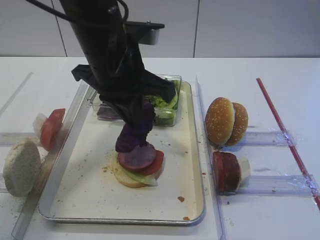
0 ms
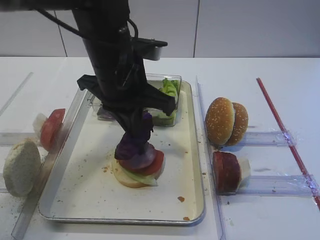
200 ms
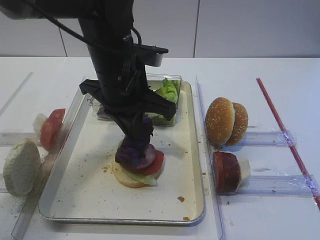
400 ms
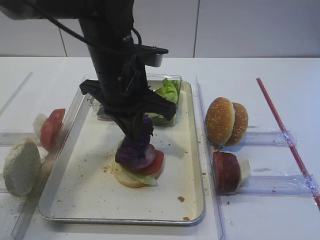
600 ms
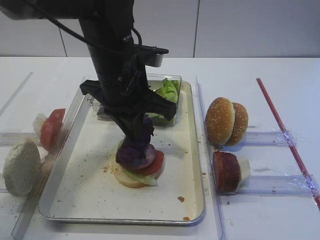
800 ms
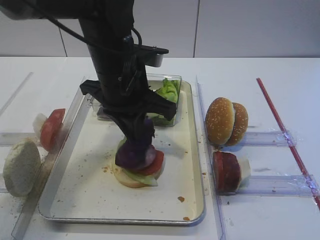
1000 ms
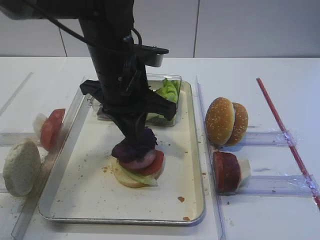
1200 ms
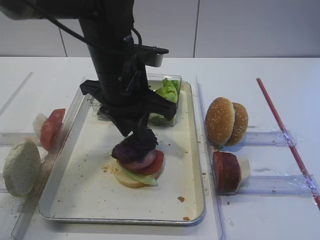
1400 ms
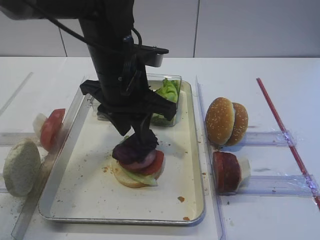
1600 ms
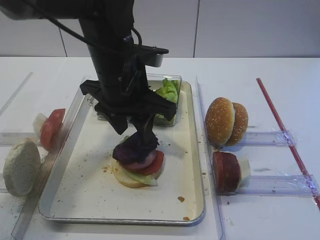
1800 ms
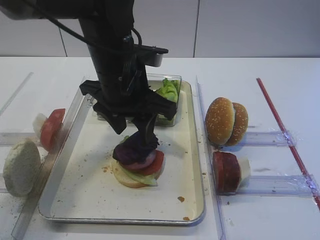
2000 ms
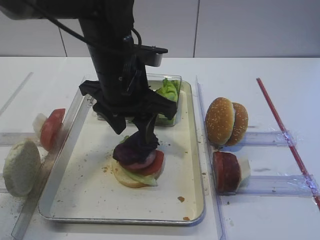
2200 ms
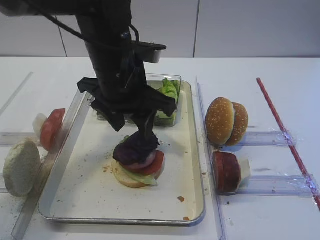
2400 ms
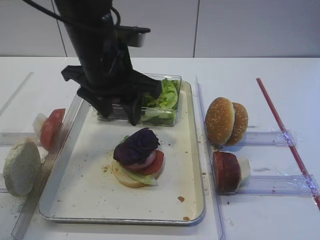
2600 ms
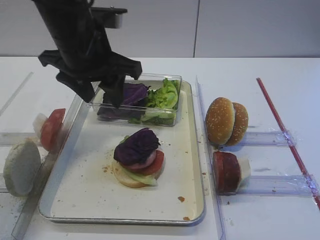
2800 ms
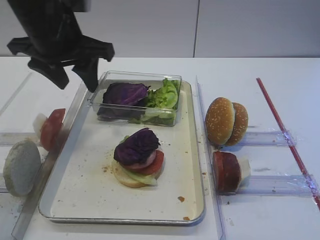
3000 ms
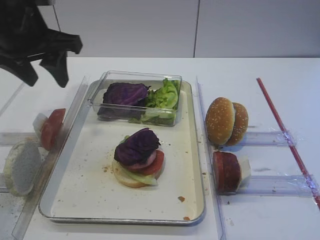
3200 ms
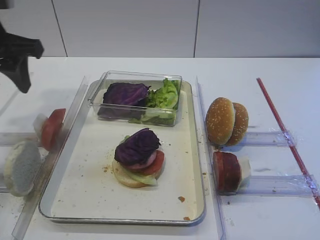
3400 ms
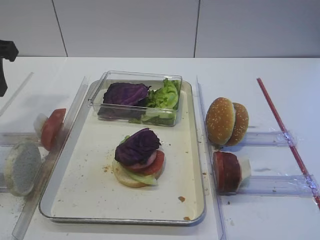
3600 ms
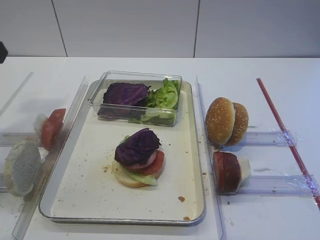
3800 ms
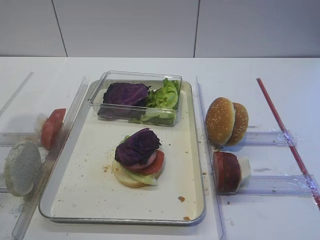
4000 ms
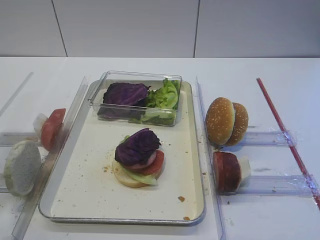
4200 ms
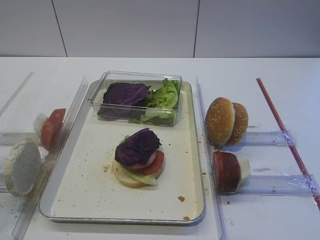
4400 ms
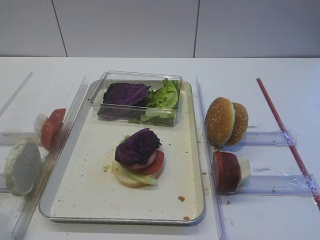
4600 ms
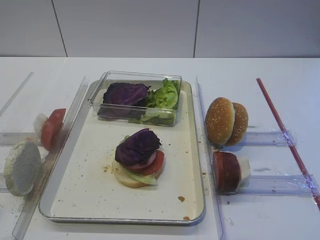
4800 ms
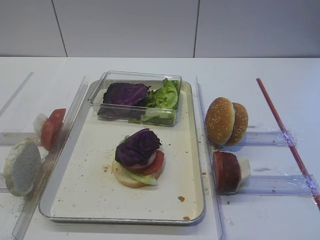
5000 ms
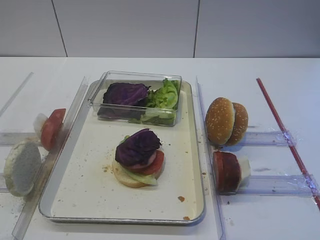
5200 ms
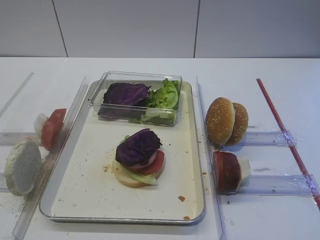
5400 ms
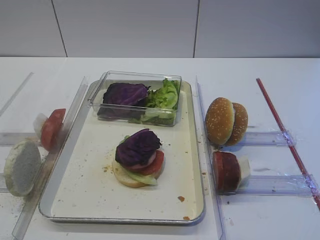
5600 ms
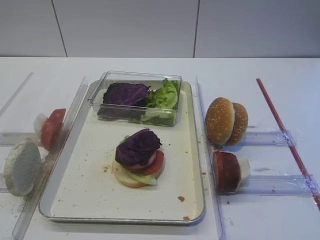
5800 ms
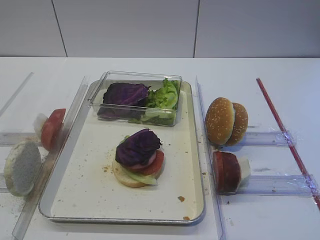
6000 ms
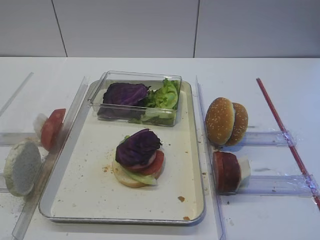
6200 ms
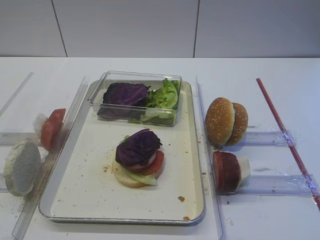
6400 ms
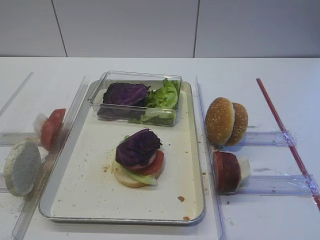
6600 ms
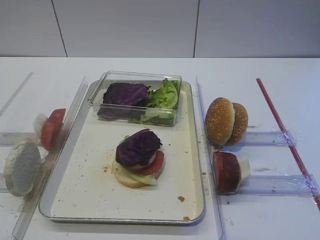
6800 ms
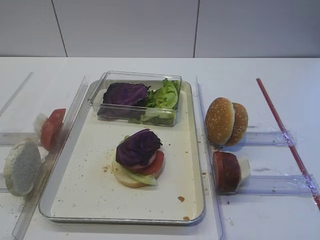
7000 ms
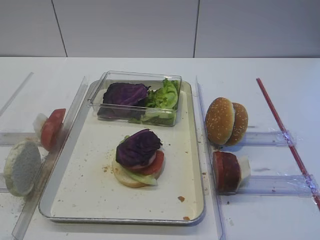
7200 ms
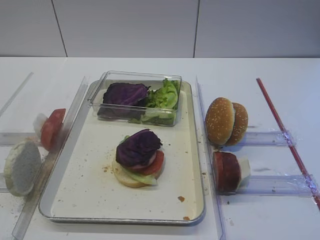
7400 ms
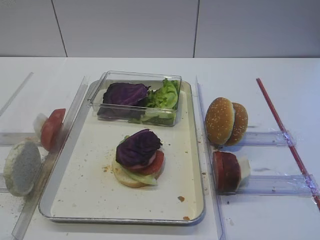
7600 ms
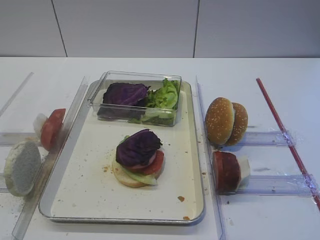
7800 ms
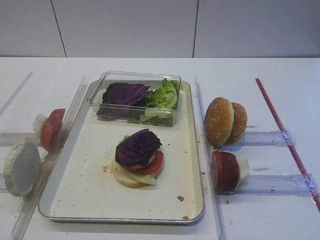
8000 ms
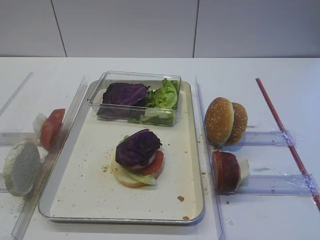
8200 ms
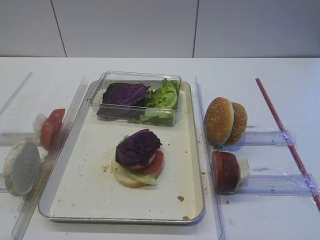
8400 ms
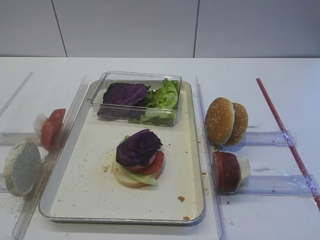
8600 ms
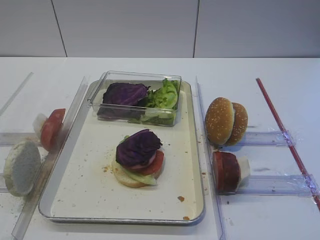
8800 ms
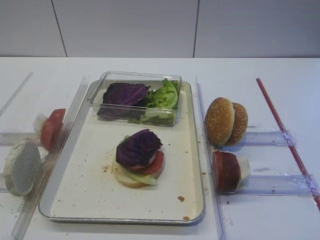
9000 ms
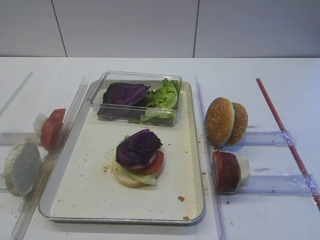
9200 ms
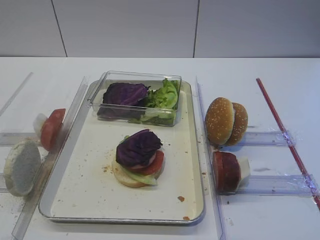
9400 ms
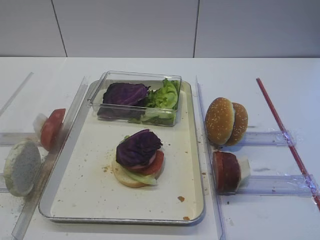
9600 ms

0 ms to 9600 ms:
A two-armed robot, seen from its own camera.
Step, 0 ms to 2600 ms: Place the purple cabbage on the cutlet with the left gripper.
0 ms to 1600 ms: The left gripper opens up.
1600 ms to 3200 ms: The left gripper moves to the left and upward, some 15 cm.
3200 ms to 4800 ms: The left gripper shifts some 30 cm backward.
6400 ms to 8000 ms: The right gripper opens its fingers.

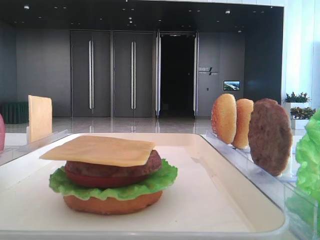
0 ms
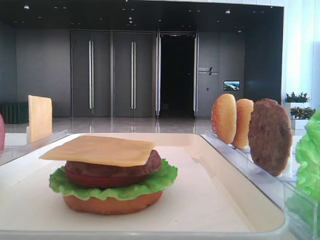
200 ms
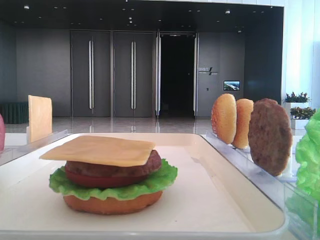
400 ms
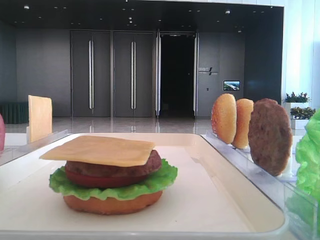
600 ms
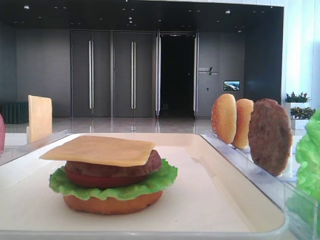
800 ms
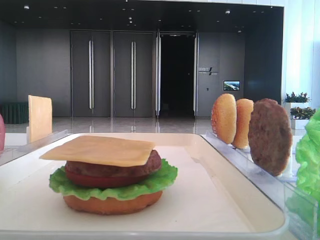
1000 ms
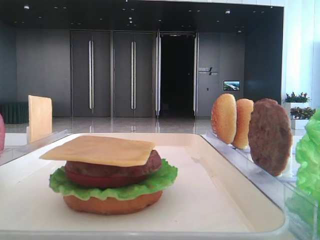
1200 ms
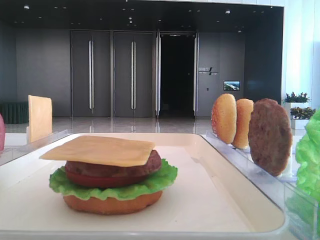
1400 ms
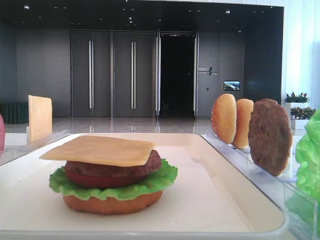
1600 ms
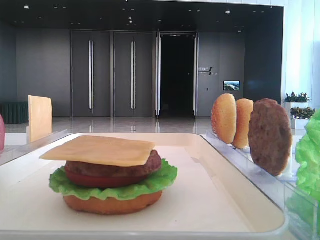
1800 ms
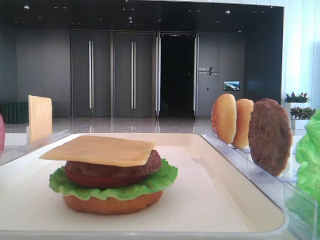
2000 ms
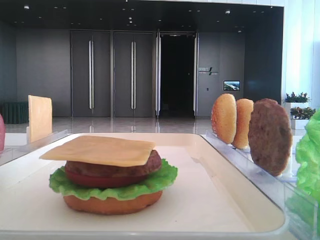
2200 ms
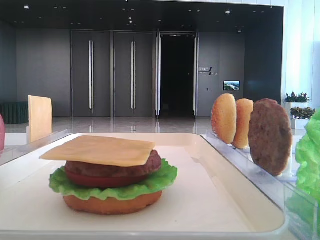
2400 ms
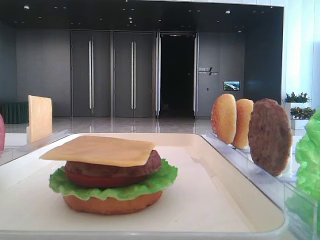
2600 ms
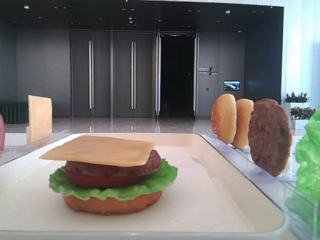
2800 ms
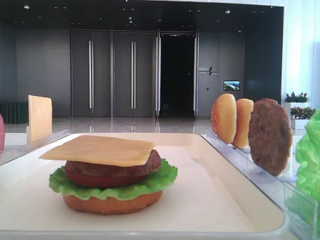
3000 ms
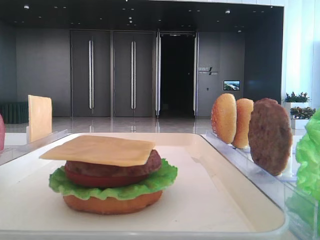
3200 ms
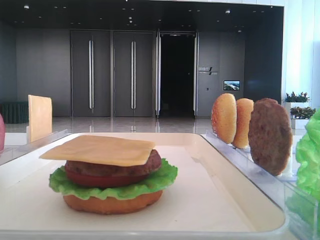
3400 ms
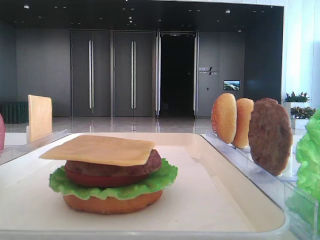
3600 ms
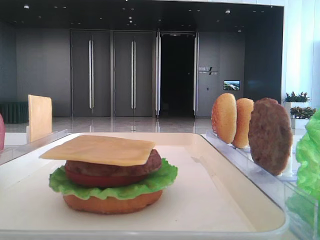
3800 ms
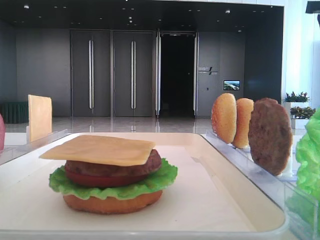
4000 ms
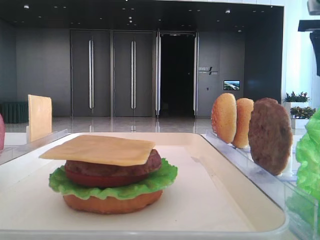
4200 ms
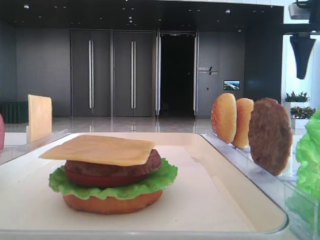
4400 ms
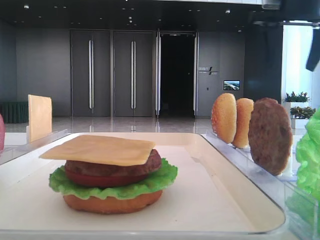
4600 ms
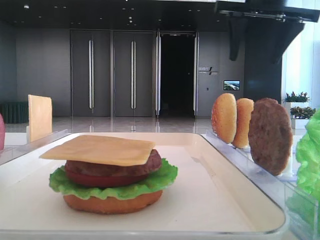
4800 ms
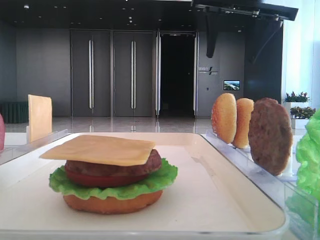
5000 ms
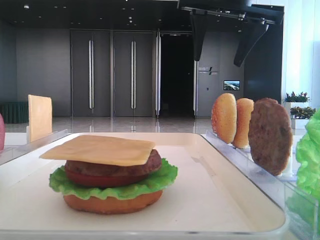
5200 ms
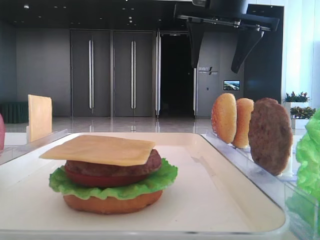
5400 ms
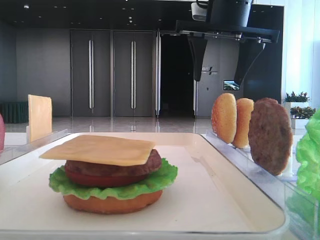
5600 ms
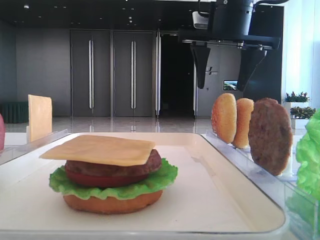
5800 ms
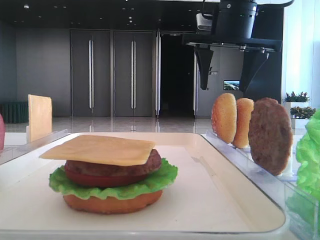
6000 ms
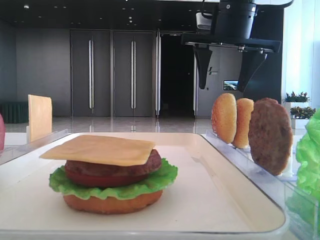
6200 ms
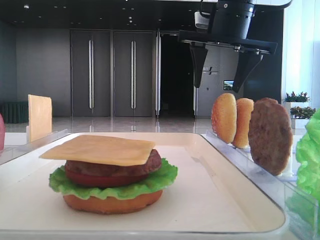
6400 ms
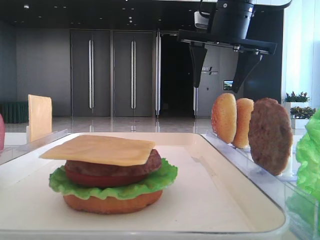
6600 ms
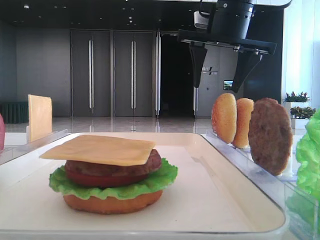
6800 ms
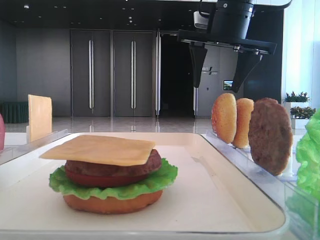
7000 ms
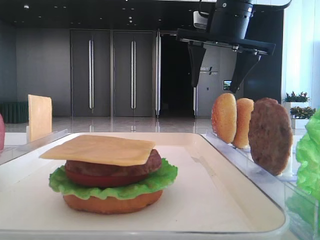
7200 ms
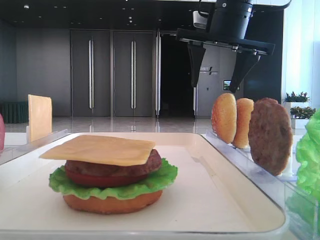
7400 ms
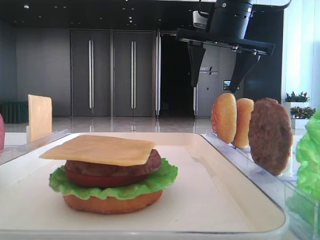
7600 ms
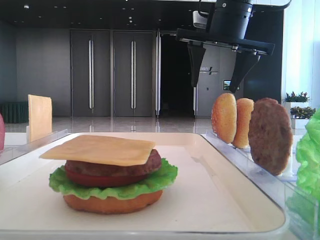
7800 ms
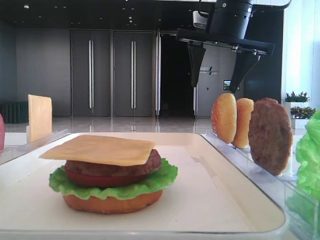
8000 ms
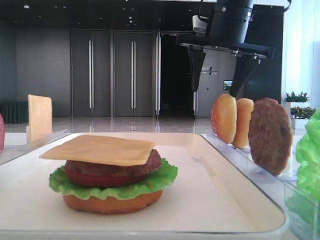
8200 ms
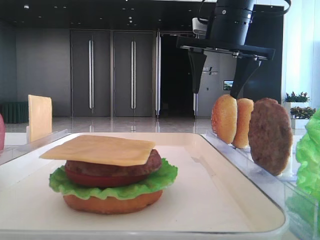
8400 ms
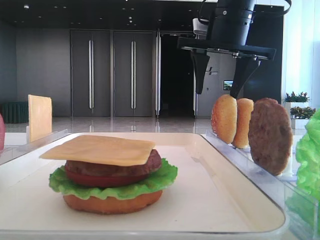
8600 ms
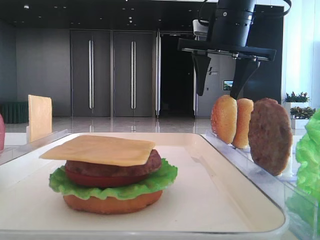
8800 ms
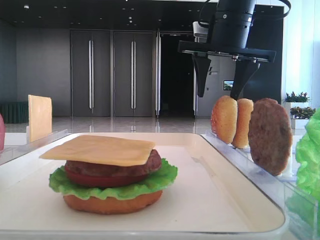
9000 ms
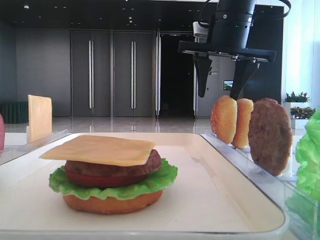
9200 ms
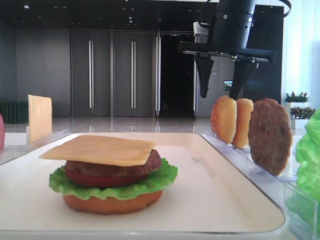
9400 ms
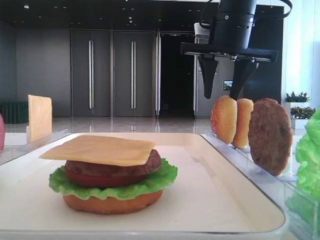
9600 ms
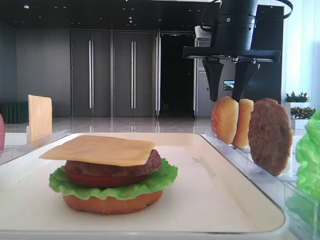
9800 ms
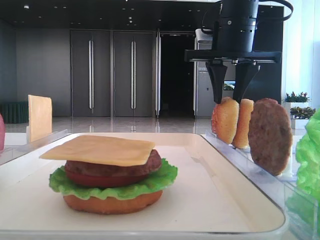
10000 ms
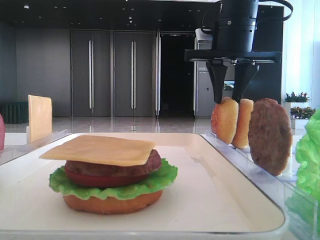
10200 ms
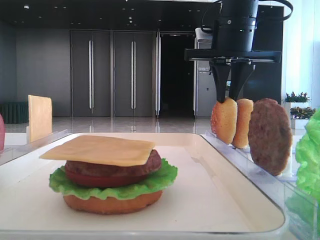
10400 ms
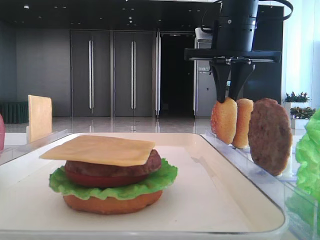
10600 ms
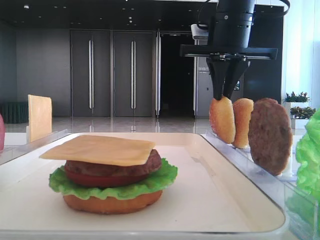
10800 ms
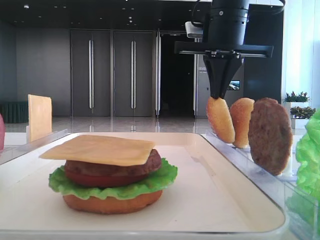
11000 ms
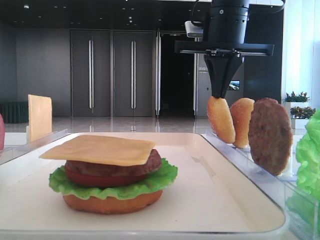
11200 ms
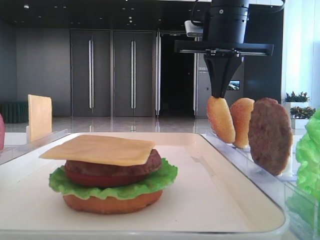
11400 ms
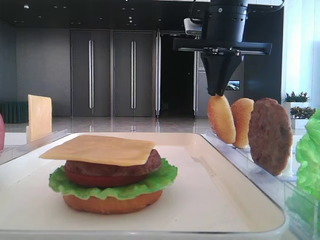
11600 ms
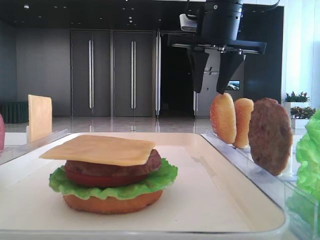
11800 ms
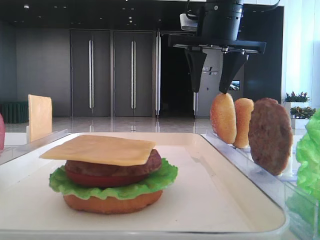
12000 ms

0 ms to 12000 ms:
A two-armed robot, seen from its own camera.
3000 ms to 4400 ms: The right gripper travels forward by some 30 cm.
4400 ms to 6000 ms: The right gripper shifts approximately 15 cm to the left.
6000 ms to 7600 ms: The two grippers keep their place.
7600 ms to 9000 ms: The grippers stay close to where they were, moving slightly.
9000 ms to 10400 ms: The right gripper closes.
10400 ms to 12000 ms: The right gripper opens its fingers.

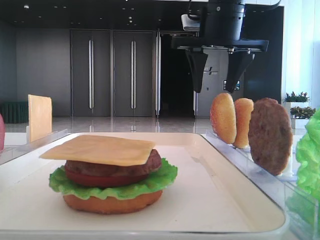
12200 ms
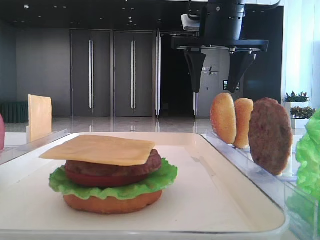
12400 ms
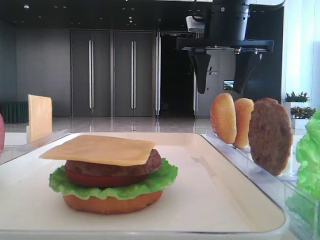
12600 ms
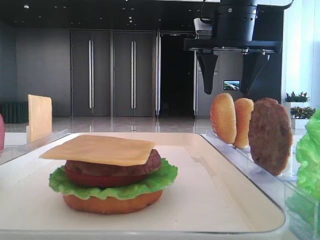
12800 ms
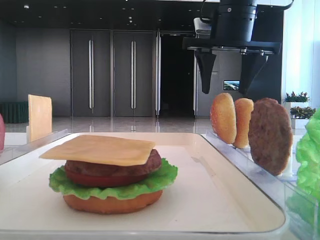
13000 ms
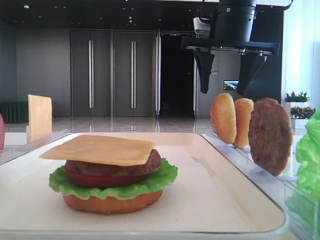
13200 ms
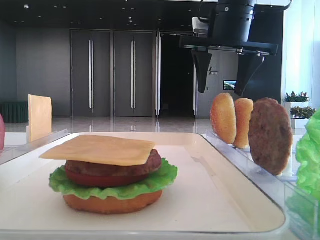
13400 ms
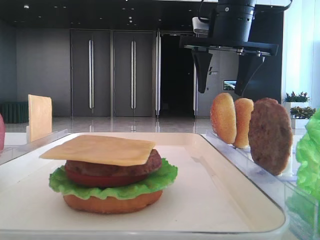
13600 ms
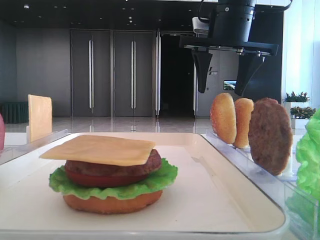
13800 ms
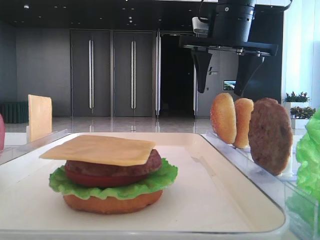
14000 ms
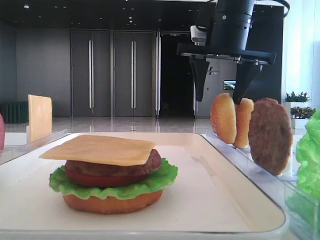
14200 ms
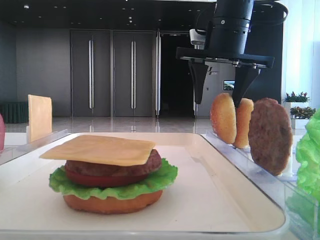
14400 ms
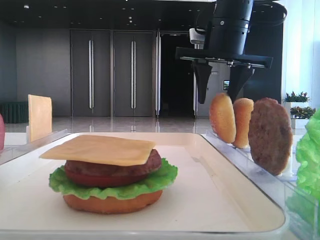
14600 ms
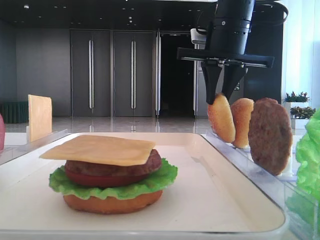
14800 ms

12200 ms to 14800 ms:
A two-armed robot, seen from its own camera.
12200 ms to 13400 ms: There are only small adjustments of the grippers.
13400 ms to 14800 ms: The right gripper closes up.
